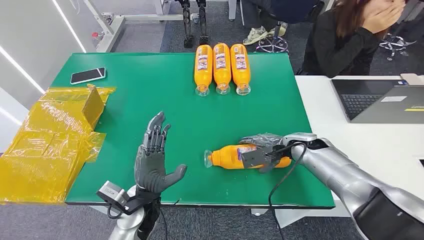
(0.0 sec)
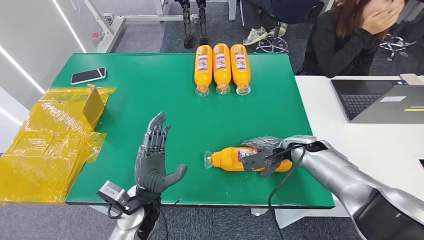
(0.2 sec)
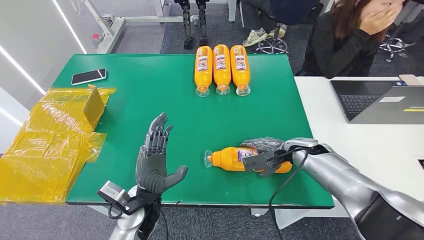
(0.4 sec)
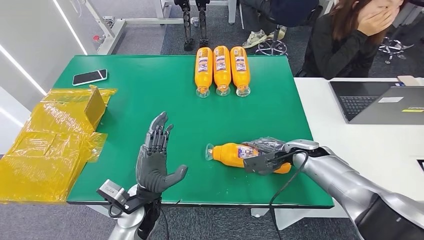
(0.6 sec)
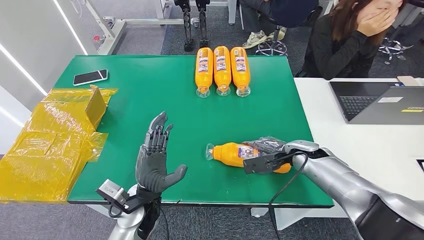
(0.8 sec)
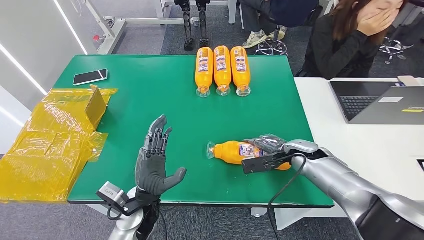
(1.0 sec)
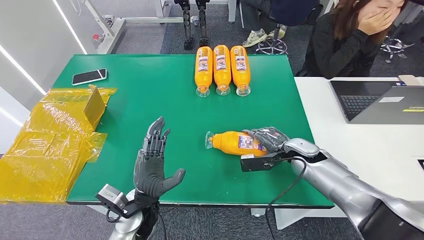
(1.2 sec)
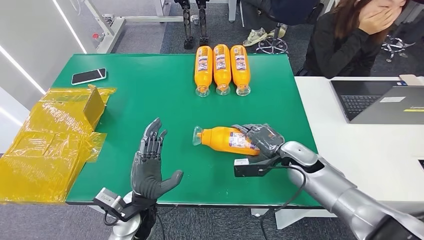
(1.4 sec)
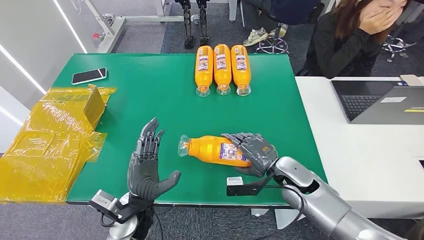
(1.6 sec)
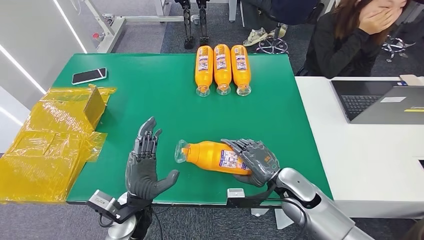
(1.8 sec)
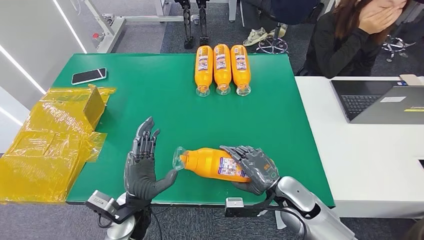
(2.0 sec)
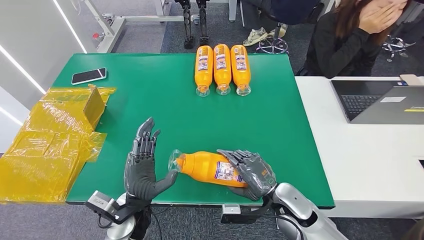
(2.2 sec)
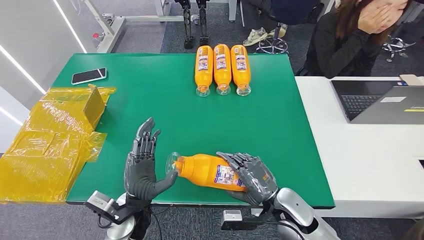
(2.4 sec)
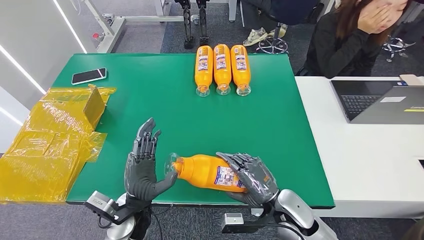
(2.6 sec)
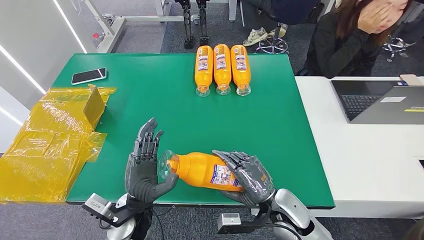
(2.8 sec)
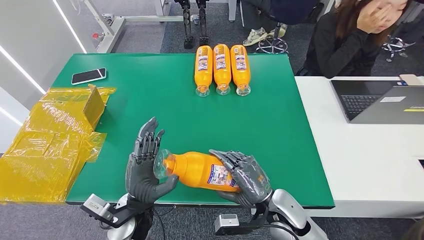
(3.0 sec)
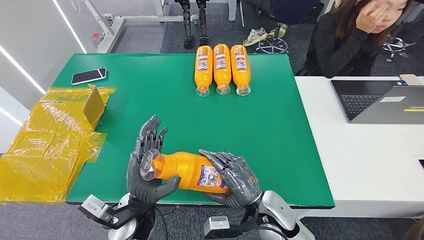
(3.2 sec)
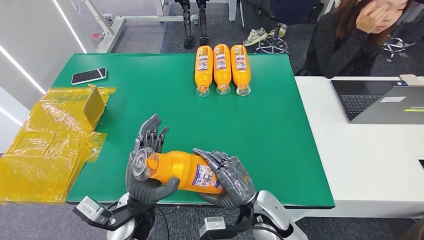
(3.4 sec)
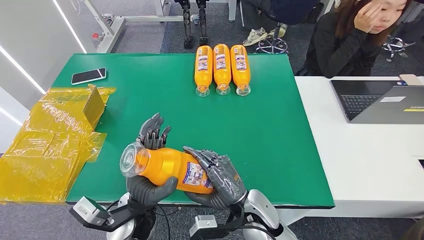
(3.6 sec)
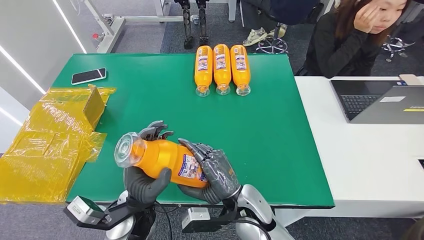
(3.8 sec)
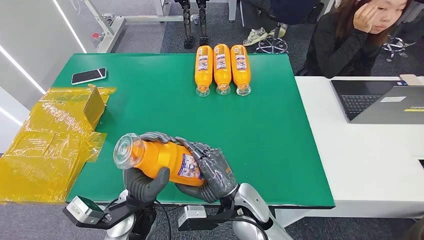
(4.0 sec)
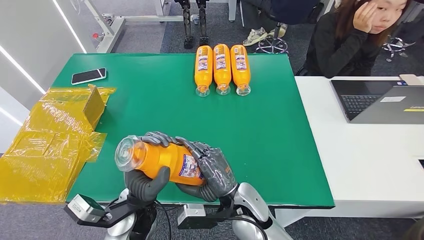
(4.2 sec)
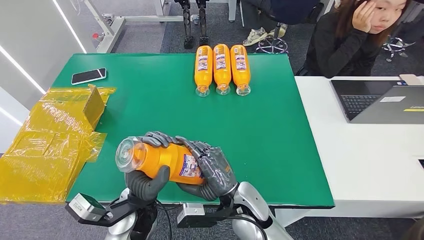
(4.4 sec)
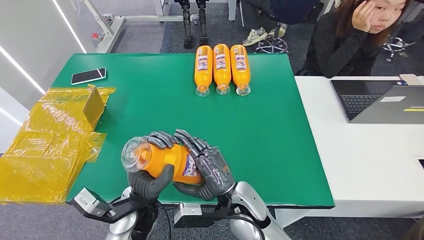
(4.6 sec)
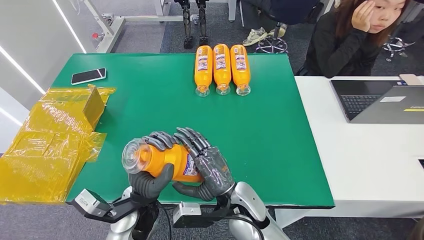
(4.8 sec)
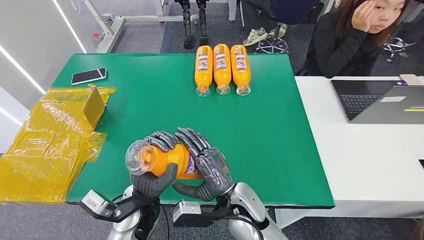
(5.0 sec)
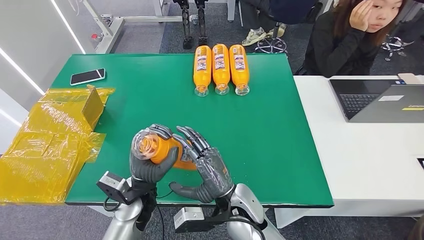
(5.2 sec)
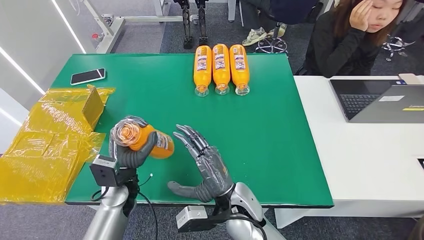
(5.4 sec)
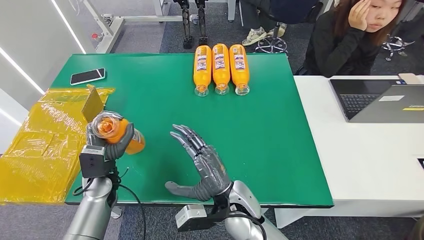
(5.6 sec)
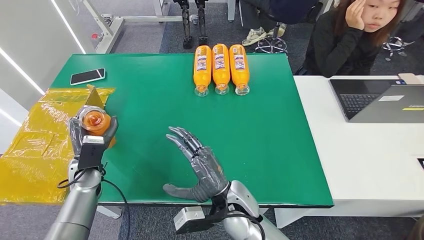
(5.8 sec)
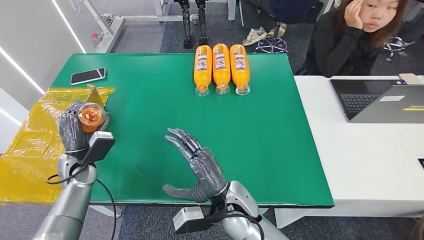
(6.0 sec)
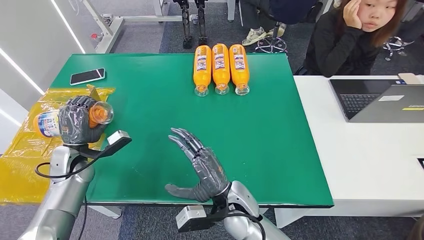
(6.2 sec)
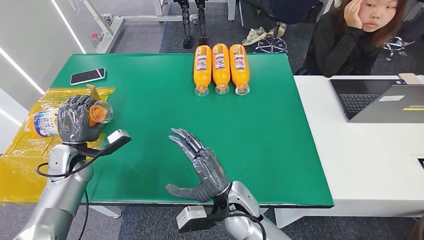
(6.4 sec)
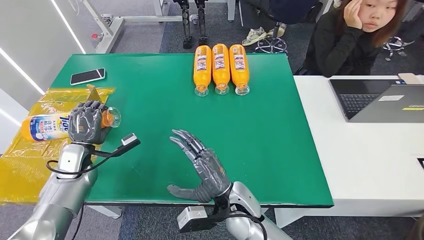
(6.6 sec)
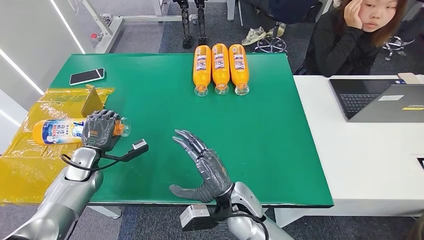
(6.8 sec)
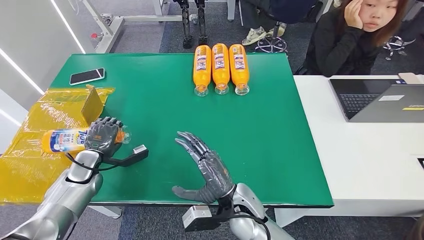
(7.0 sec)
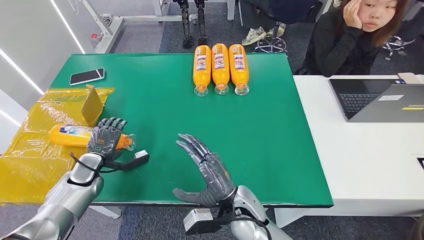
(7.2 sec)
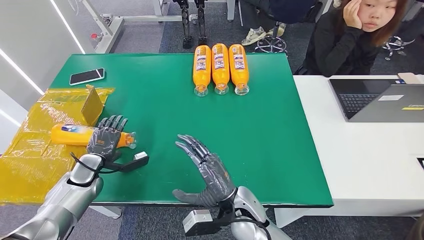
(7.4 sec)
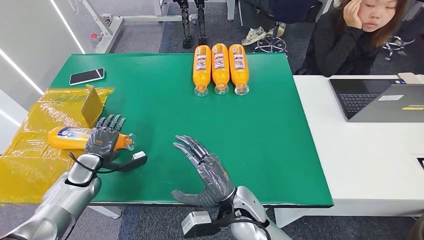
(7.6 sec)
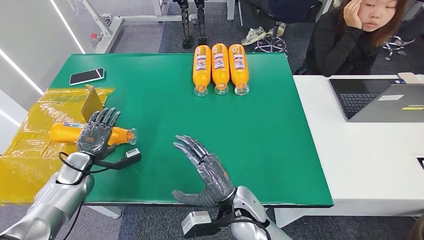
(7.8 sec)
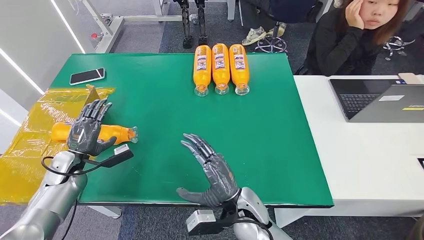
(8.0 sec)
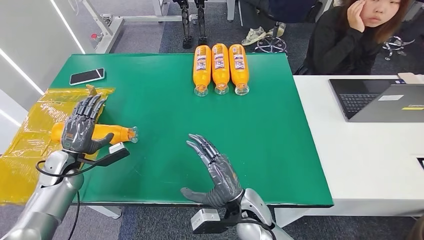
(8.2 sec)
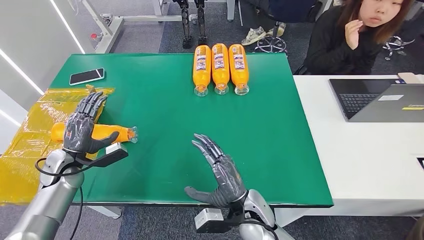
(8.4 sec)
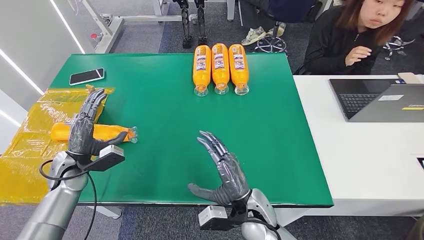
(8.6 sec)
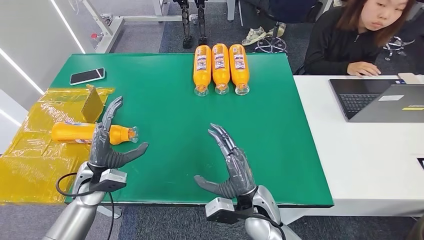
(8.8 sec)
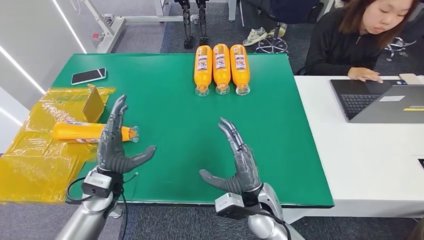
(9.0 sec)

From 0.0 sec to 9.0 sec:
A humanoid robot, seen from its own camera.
Step, from 0.0 sec to 3.6 sec: Pick up the bottle from the table.
Step, from 3.8 sec to 9.0 sec: Turn the bottle to the front side.
From 1.6 sec to 3.0 sec: The right hand moves backward and to the left, about 10 cm.
From 3.0 sec to 4.4 sec: The right hand heads to the left, covering approximately 10 cm.
From 4.4 sec to 6.0 sec: The left hand shifts some 25 cm to the left and forward.
From 6.0 sec to 7.6 sec: The left hand ends up roughly 5 cm from where it was.
